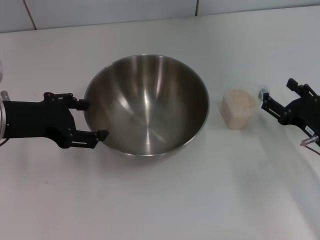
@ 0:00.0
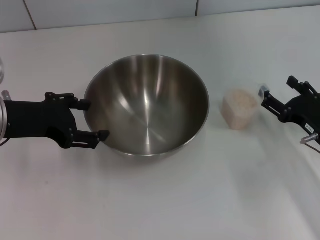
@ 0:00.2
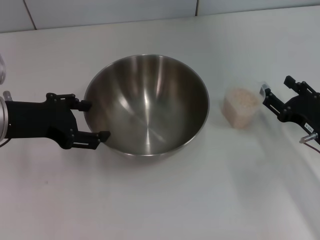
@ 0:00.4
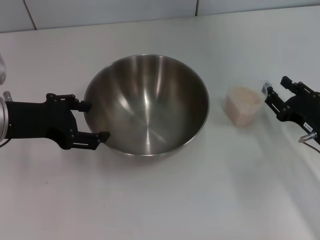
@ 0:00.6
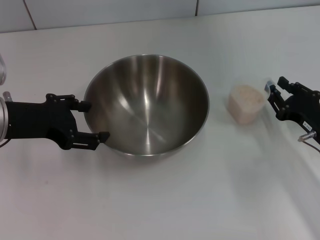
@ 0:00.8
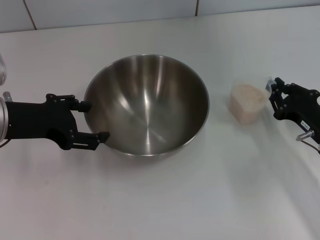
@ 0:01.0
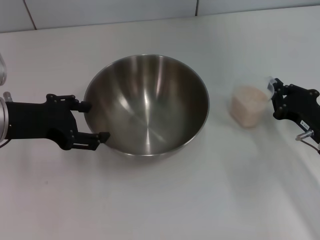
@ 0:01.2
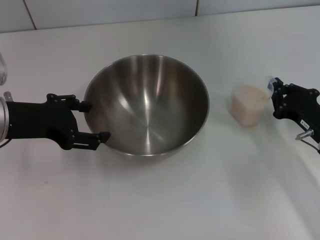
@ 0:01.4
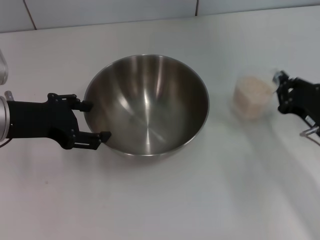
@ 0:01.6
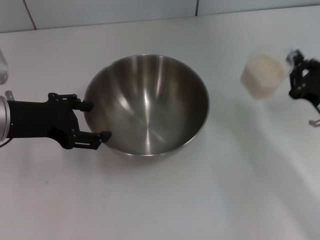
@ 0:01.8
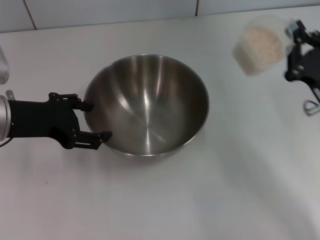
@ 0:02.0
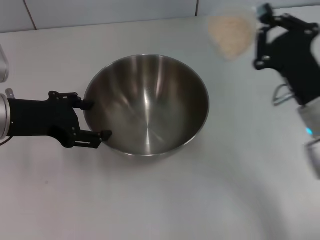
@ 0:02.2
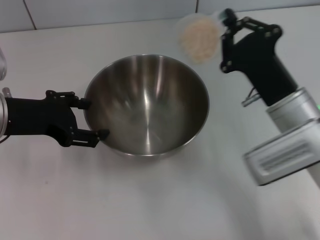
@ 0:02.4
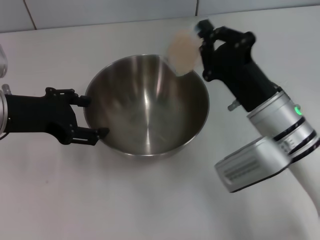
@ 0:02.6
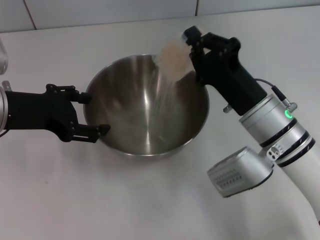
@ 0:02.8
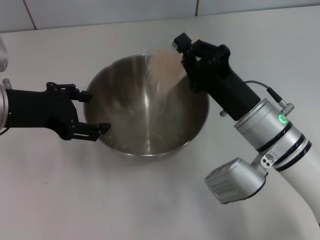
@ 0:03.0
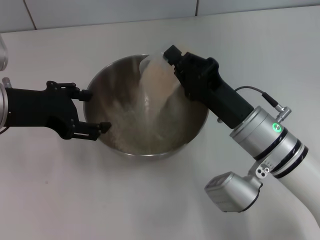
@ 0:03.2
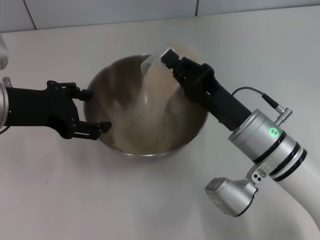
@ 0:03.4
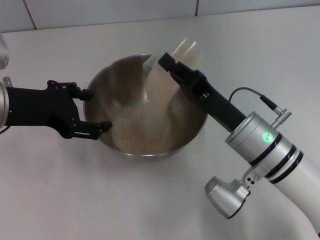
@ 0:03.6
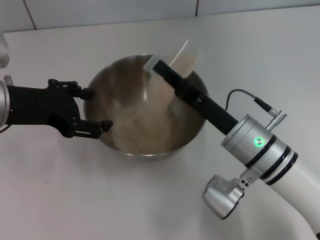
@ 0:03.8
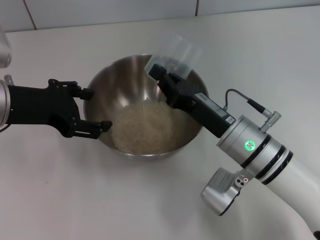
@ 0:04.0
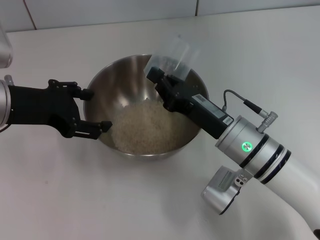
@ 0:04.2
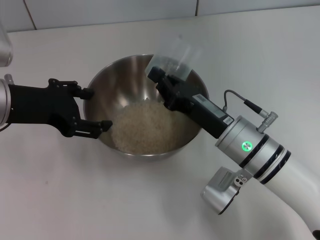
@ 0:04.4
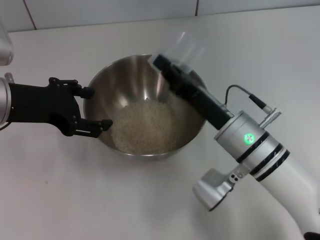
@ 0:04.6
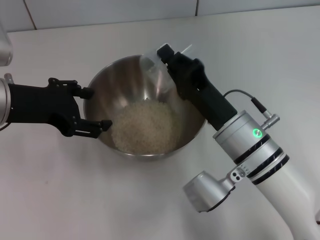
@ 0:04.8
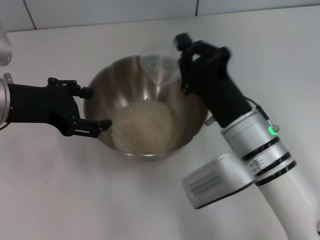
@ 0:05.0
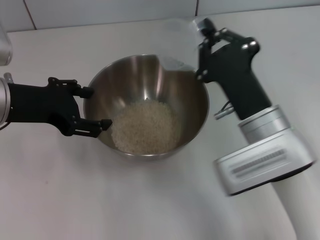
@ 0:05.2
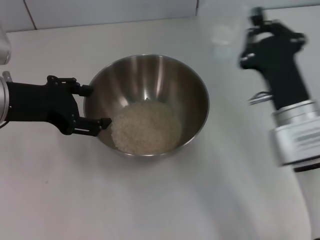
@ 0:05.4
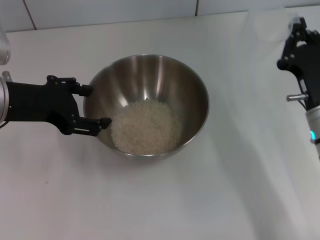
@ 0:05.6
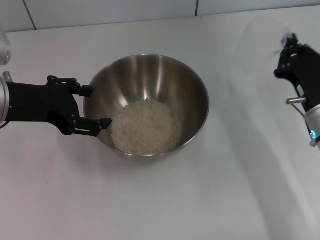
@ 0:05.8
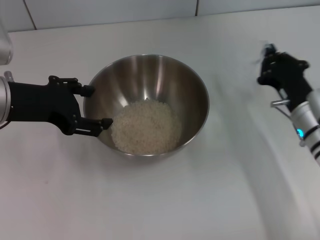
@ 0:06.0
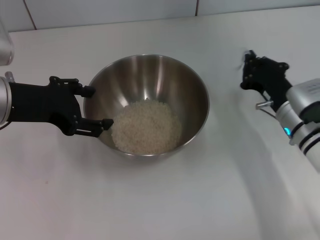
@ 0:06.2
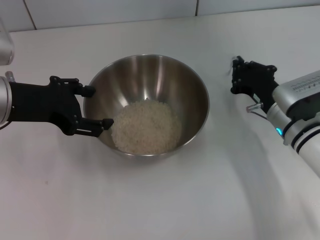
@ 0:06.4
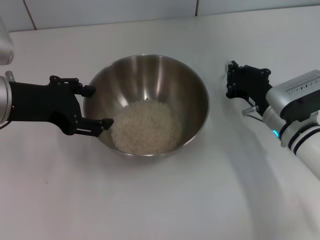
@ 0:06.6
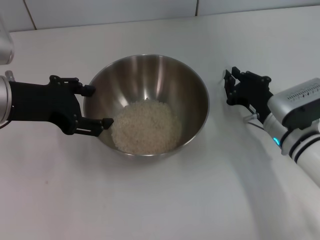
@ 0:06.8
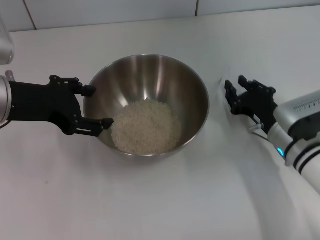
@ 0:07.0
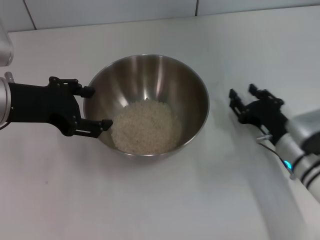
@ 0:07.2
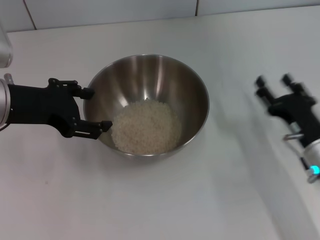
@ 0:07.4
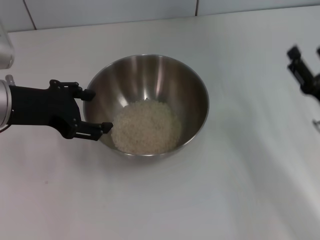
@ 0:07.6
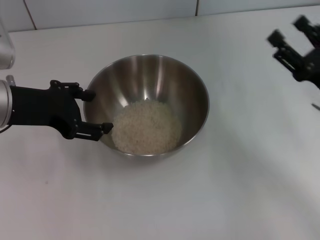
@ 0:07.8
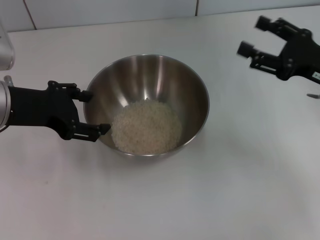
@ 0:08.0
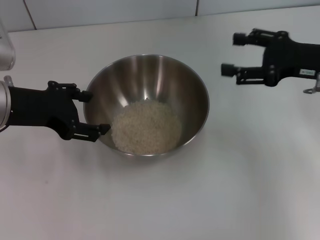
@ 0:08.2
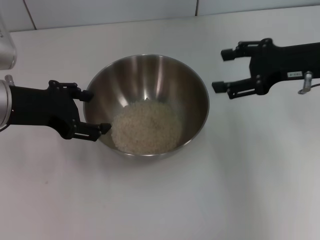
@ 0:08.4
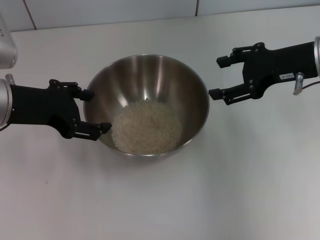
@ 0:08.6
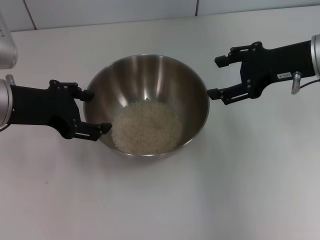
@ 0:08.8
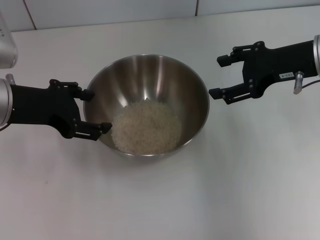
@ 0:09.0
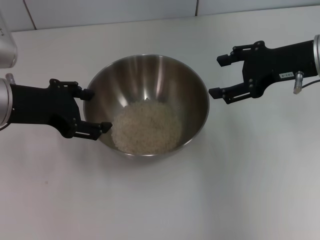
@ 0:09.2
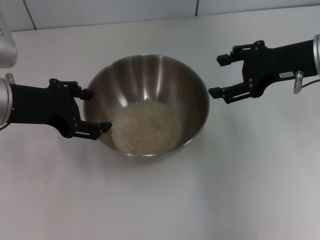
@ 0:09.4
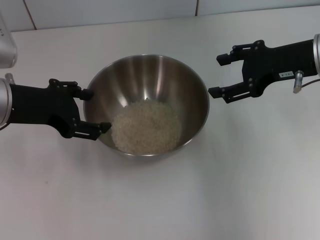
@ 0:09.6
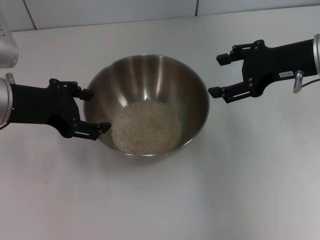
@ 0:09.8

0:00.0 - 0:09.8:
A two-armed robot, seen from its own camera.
Task of the whole recording: Place the bowl in the middle of the table with one hand and pour the rice from the grain cup into it with the other hand.
Step, 0:02.2 - 0:05.0: Pour the rice from the cup into the bowl with the right gripper.
Step, 0:05.2 - 0:07.6: Place the cup on the table with the right gripper.
0:00.0 - 0:01.4: The right gripper closes up.
0:01.4 - 0:02.8: The right gripper moves to the left, some 15 cm.
0:04.2 - 0:05.6: The right gripper travels to the right by roughly 10 cm.
0:05.6 - 0:07.0: The right gripper heads downward, covering roughly 5 cm.
0:07.0 - 0:08.4: The right gripper shifts some 15 cm upward, and opens up.
0:08.4 - 0:09.8: The grippers stay close to where they were, moving slightly.
